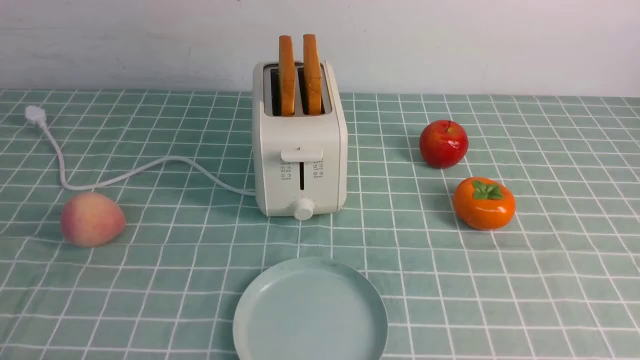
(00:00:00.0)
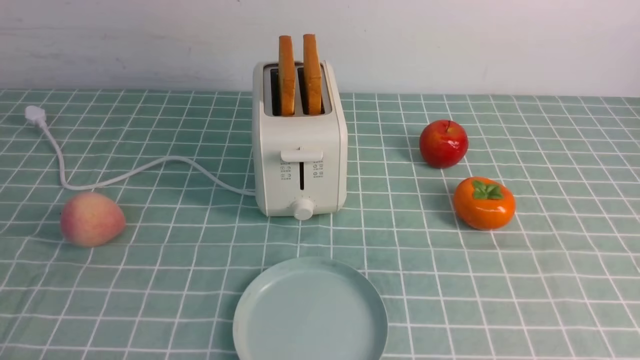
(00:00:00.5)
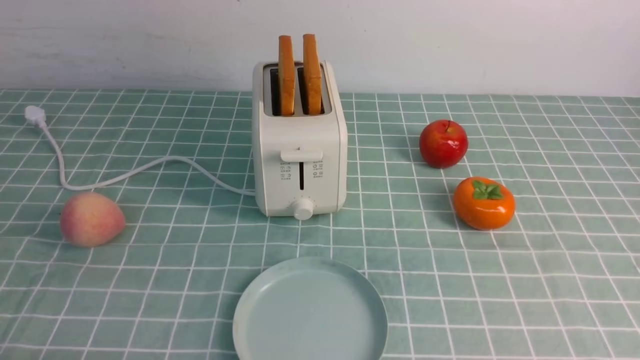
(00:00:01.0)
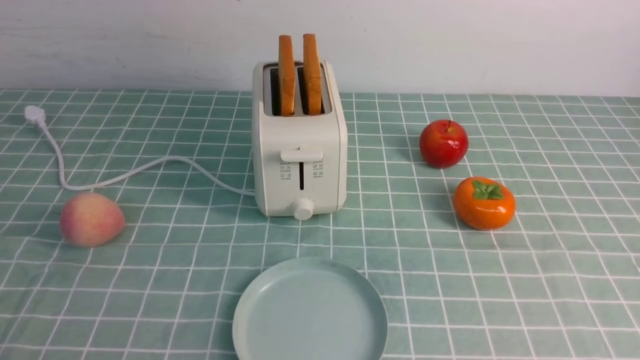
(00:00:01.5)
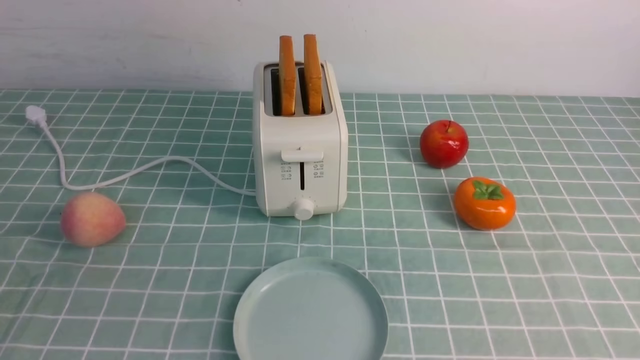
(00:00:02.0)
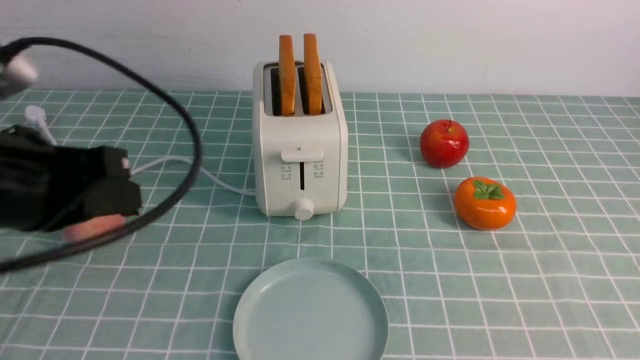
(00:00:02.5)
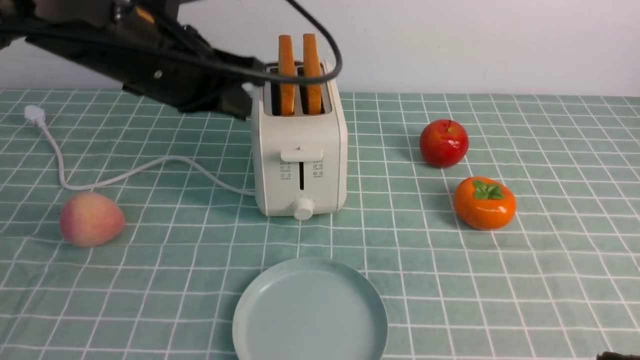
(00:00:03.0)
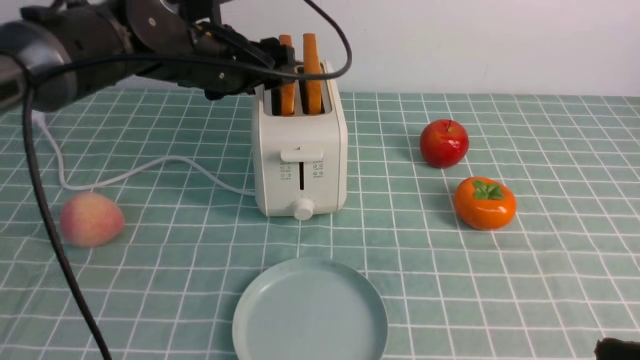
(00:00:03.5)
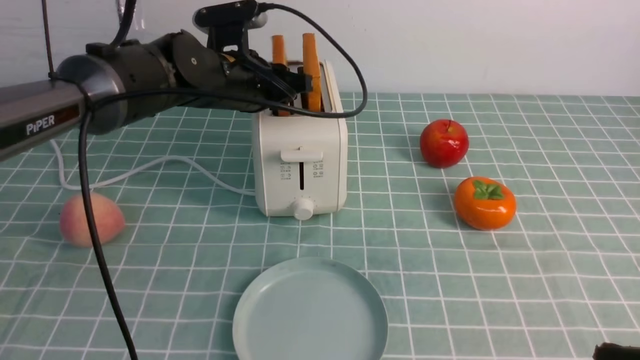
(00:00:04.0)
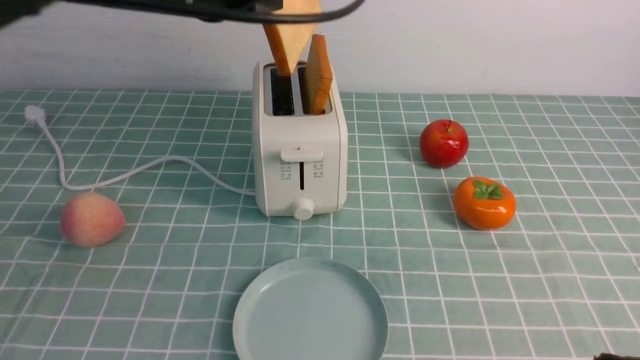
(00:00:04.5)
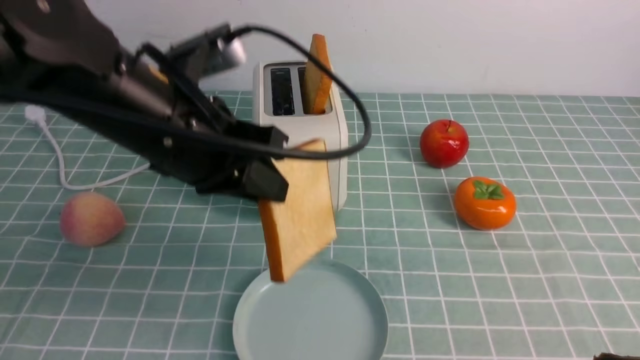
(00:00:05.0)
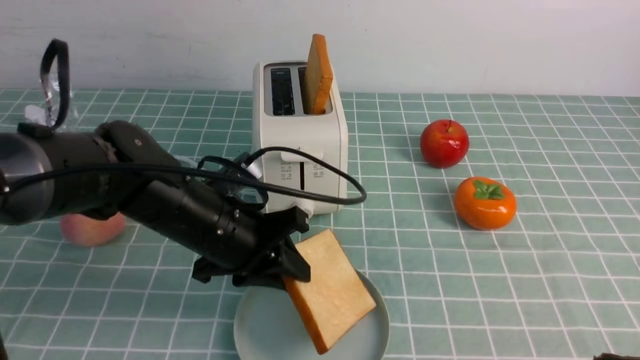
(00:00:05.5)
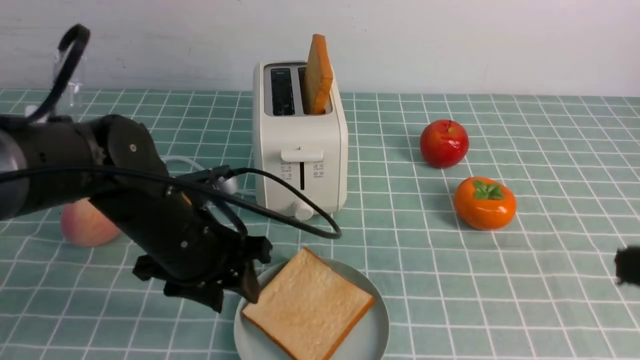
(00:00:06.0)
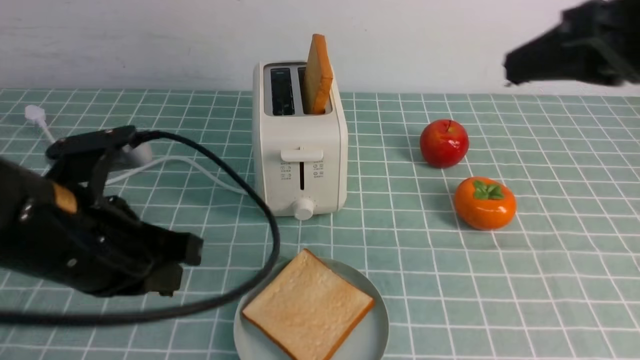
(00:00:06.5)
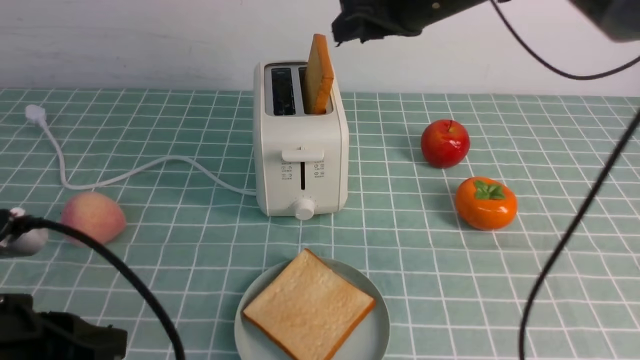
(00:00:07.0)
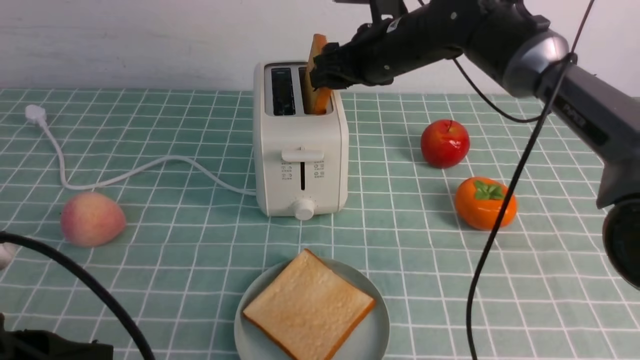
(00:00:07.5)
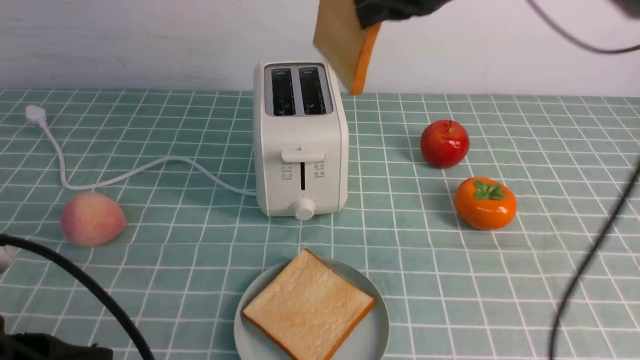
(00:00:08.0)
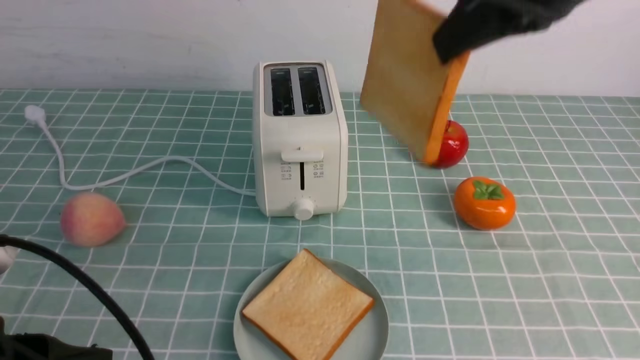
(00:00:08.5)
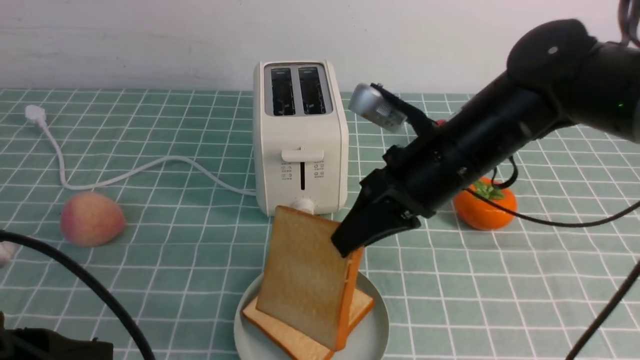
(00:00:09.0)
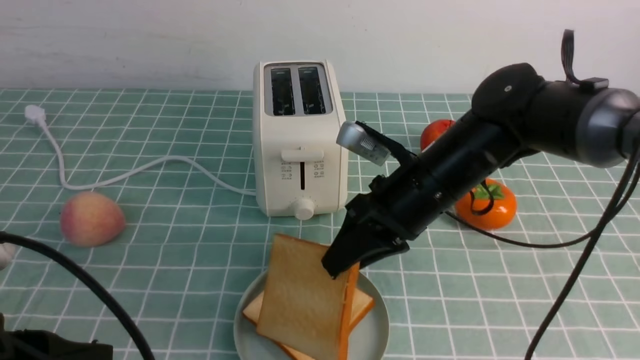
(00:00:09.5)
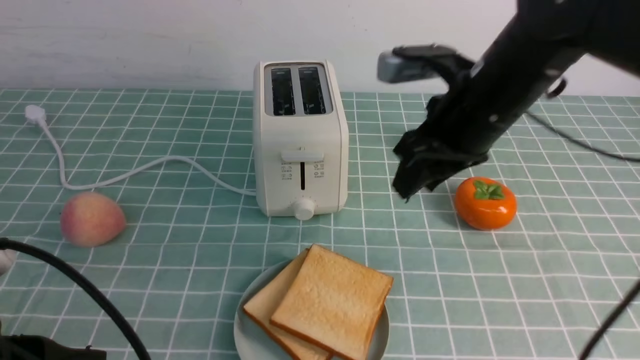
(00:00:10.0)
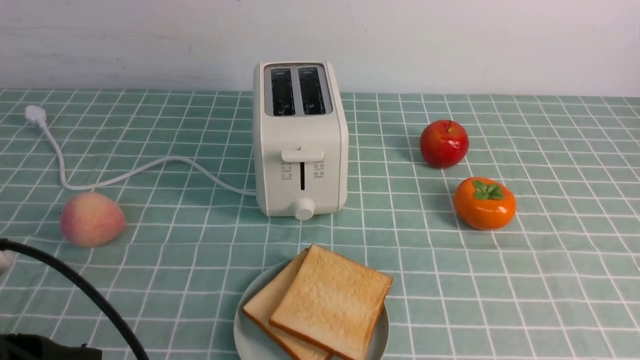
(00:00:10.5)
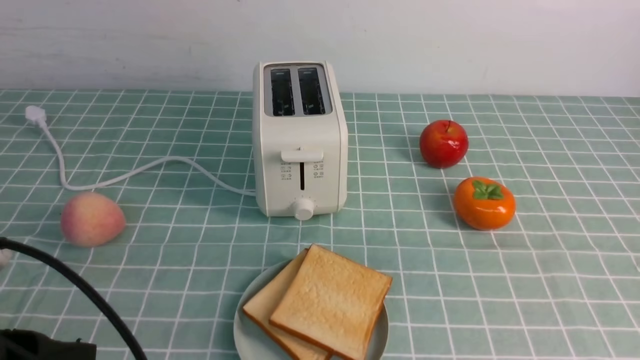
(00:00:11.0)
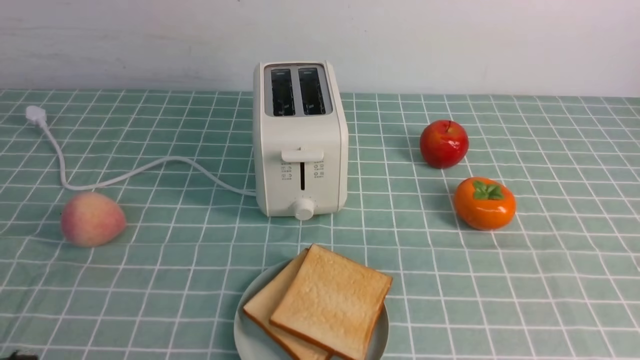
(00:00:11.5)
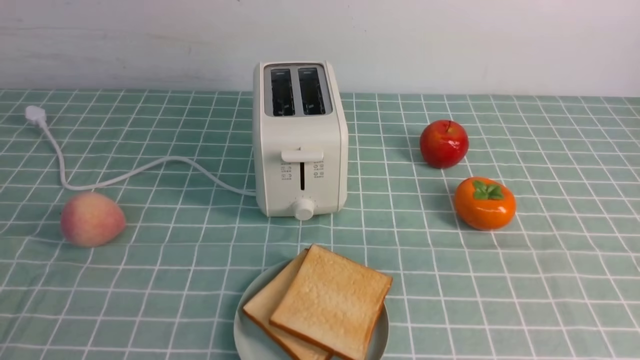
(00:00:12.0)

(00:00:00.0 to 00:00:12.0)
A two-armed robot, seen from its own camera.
Task of the whole recording: take toasted bread from bread machine on blue coffee table place on plate.
Step, 00:00:00.0 - 00:00:04.5: use the left arm to take out a slice of bread.
Step, 00:00:05.0 - 00:00:06.5: use the left arm to put a slice of bread into the empty plate.
Step, 00:00:07.0 - 00:00:08.0: use the right arm to take out a slice of bread.
Step, 00:00:08.5 - 00:00:09.5: use the right arm to put a slice of bread into the plate.
00:00:02.0 - 00:00:04.0: The right gripper travels upward by roughly 5 cm, and closes up, while the left gripper is displaced forward by approximately 40 cm, and opens.
00:00:04.0 - 00:00:06.0: The left gripper shifts about 15 cm backward and downward. The right gripper goes roughly 10 cm upward.
00:00:06.0 - 00:00:08.0: The right gripper moves forward and to the left, roughly 30 cm, and opens, then closes again. The left gripper goes approximately 20 cm backward and to the left, and closes up.
00:00:08.0 - 00:00:10.0: The right gripper travels downward and backward by approximately 10 cm, and opens up.
00:00:10.0 - 00:00:12.0: The right gripper heads backward and to the right, covering approximately 35 cm, and closes; the left gripper shifts approximately 10 cm backward.
